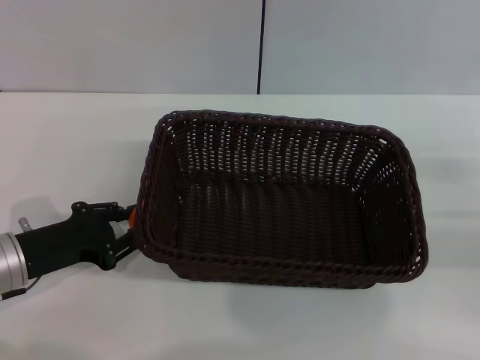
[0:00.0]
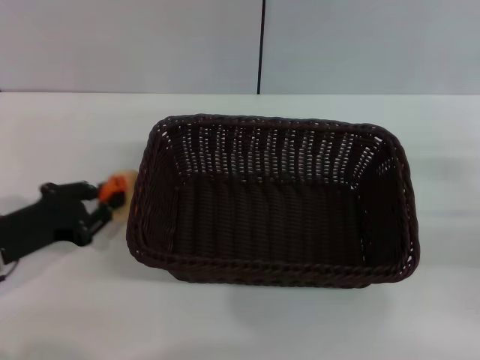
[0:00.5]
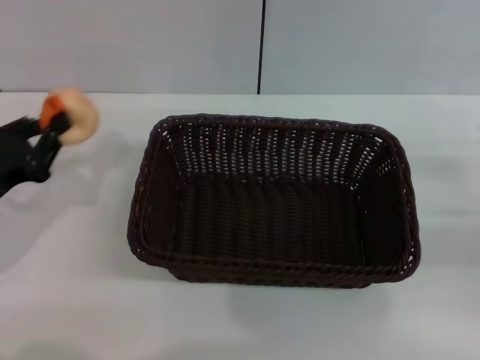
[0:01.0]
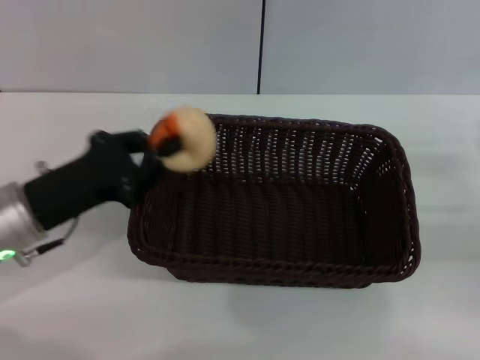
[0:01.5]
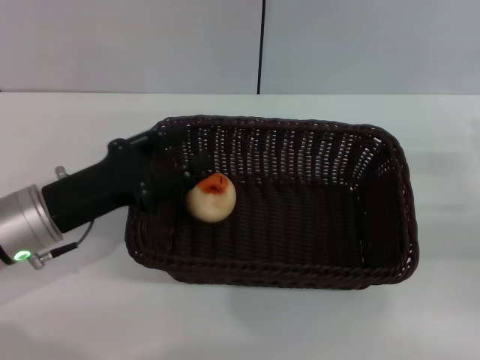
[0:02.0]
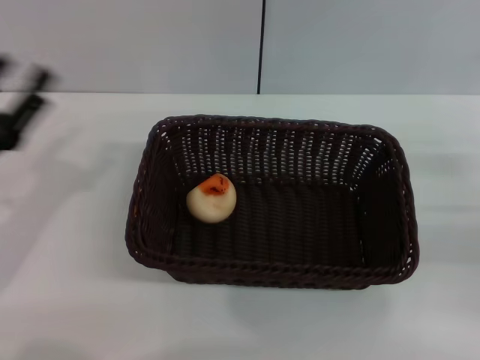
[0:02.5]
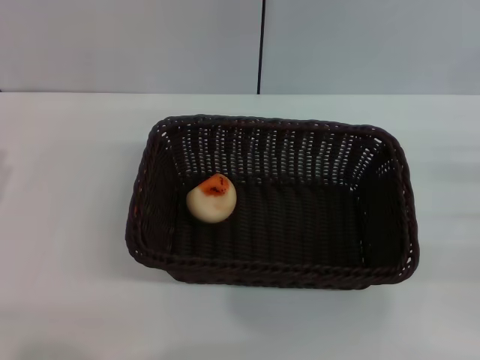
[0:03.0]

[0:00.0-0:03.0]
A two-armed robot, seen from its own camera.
Step, 0:01.0 to 0:02.0: Place the egg yolk pastry into the basket with the left gripper.
0:00.0 to 0:01.5: The left gripper ends up about 5 cm from where it was, and closes up.
0:01.5 to 0:03.0: The left gripper is displaced to the left and backward by some 10 cm, and opens its fingers.

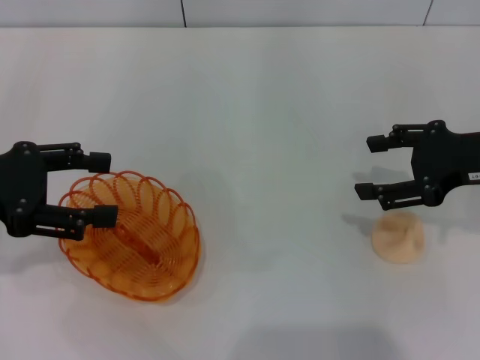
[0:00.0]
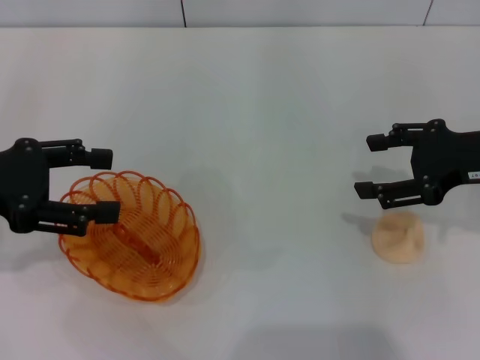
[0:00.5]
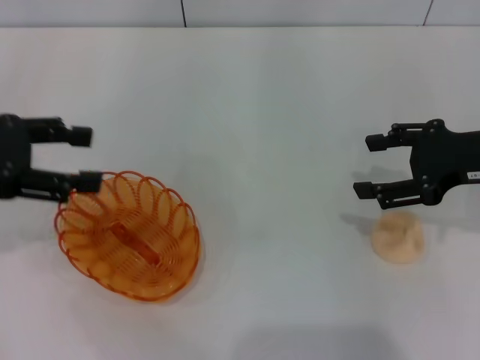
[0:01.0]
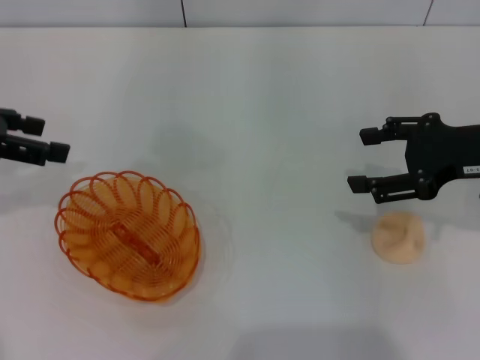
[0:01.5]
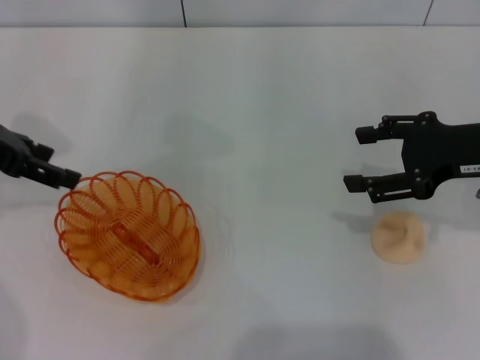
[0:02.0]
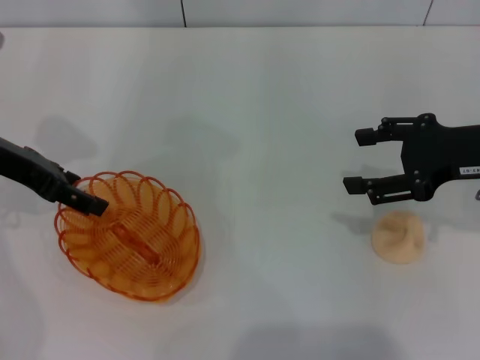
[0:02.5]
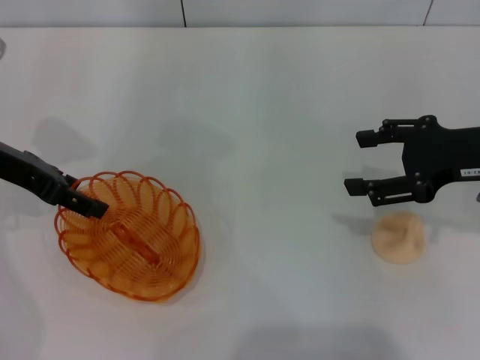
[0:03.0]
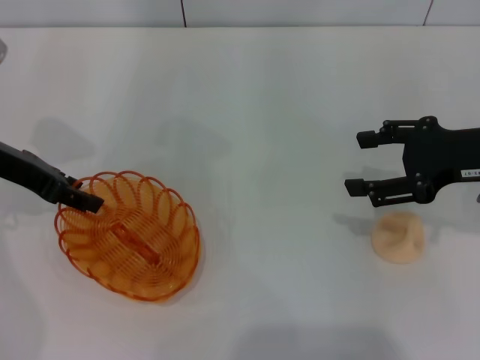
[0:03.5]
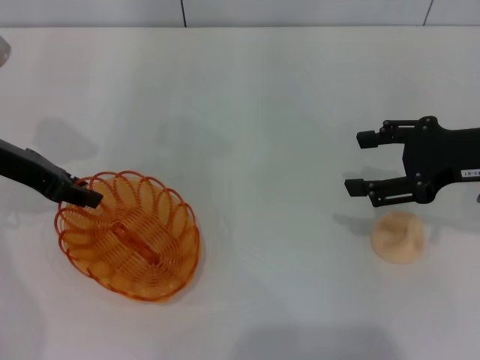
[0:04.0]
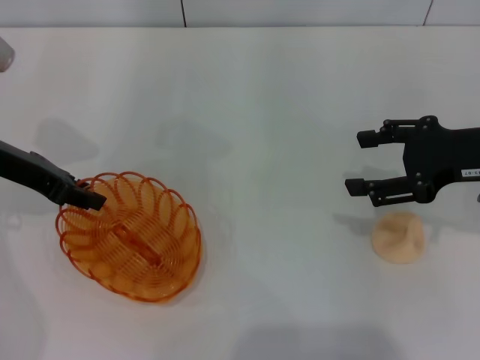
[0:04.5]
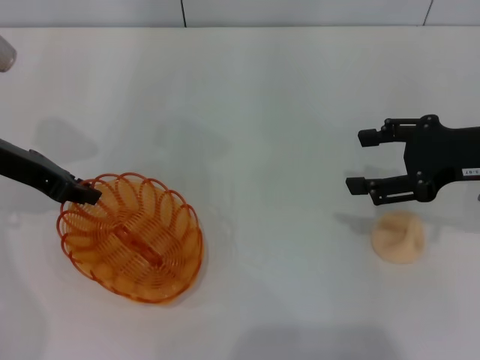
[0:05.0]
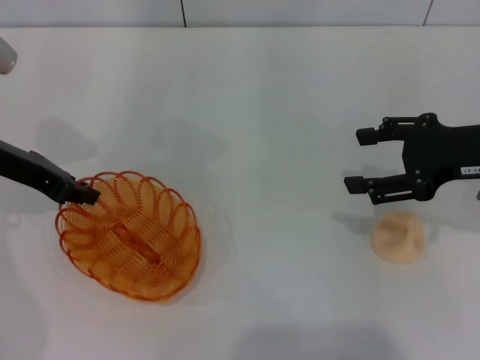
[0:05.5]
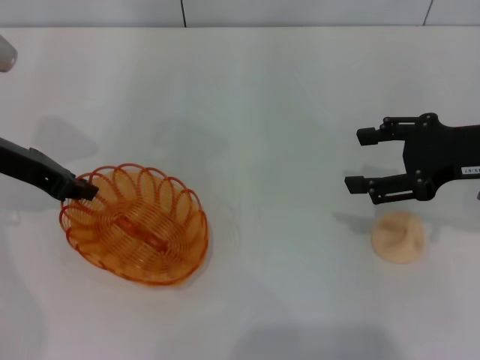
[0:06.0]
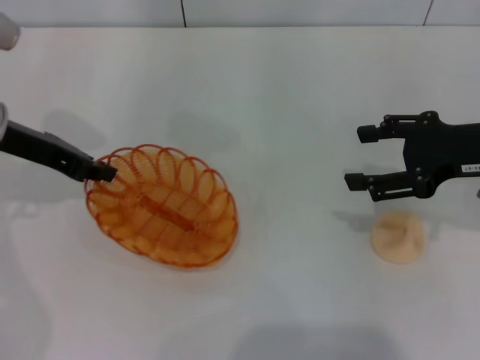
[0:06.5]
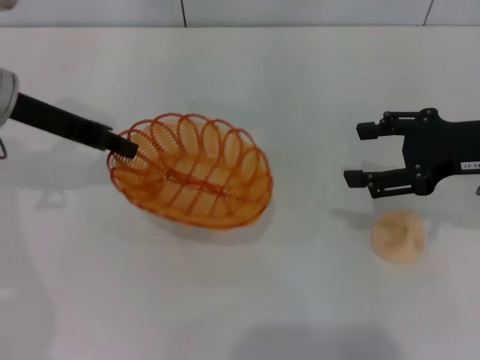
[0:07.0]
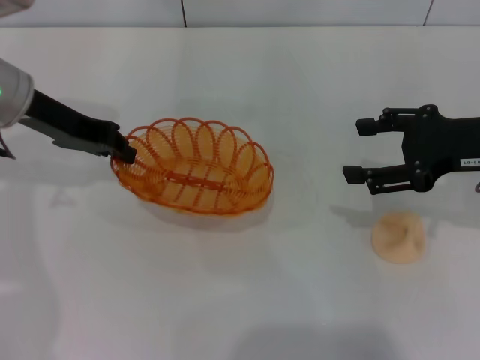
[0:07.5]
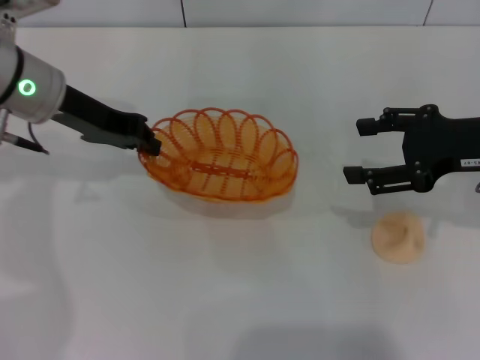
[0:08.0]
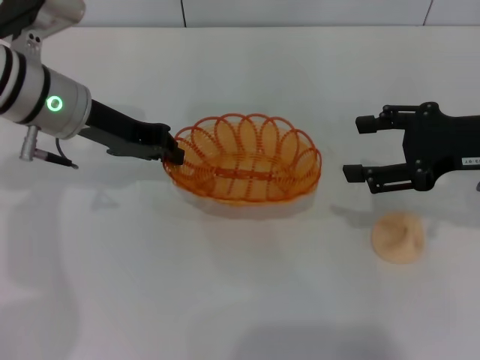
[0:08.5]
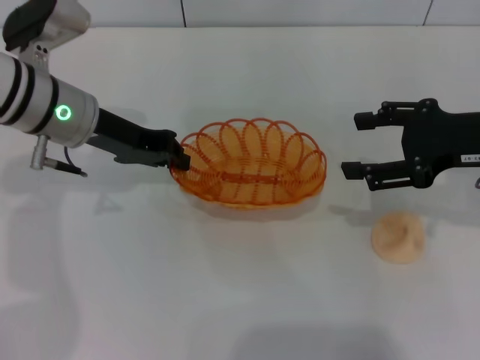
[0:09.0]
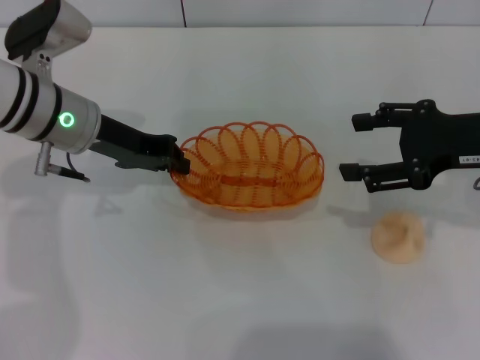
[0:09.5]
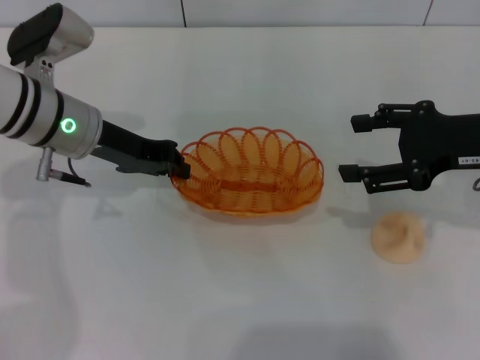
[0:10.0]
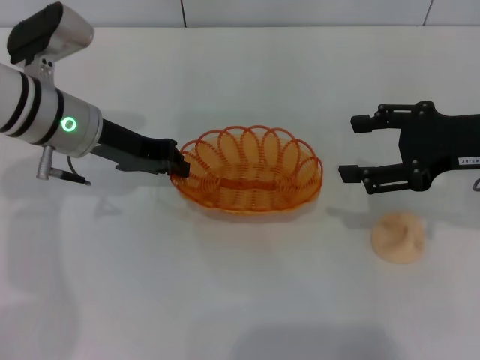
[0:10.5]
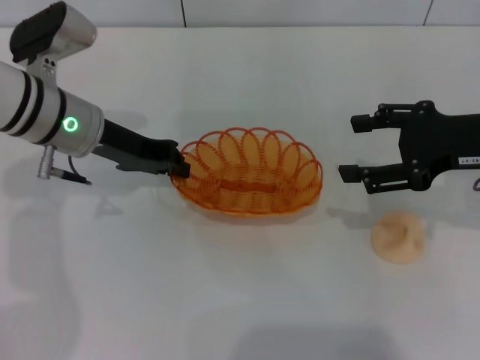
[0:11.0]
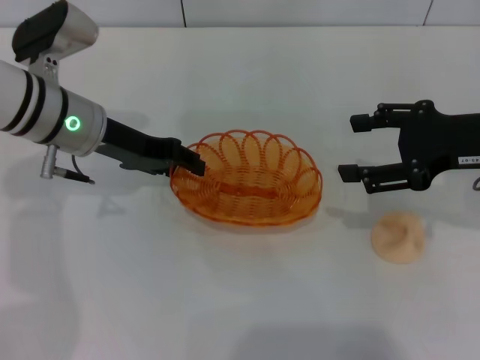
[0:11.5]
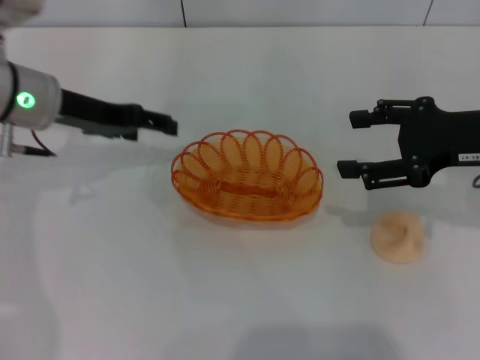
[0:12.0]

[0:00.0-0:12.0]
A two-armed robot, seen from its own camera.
Step, 0:00.0 to 0:07.5: Pick up the basket with the left gripper.
0:00.0 to 0:02.0: The left gripper is displaced forward by roughly 10 cm.
0:02.0 to 0:04.0: The left gripper moves approximately 5 cm, and closes its fingers.
0:04.0 to 0:06.0: The left gripper closes its fingers.
0:06.0 to 0:08.0: The left gripper shifts some 5 cm to the right.
0:08.0 to 0:10.0: The left gripper changes place by some 5 cm.
0:10.0 to 0:12.0: The left gripper opens its fingers.

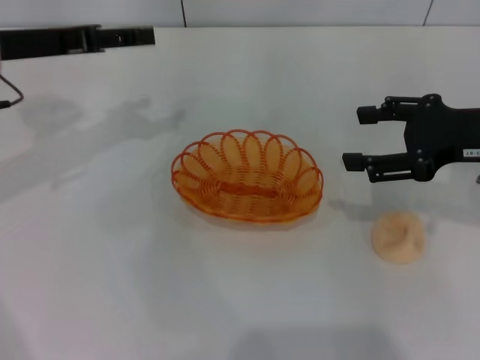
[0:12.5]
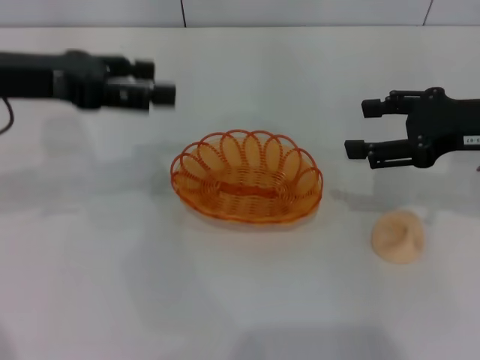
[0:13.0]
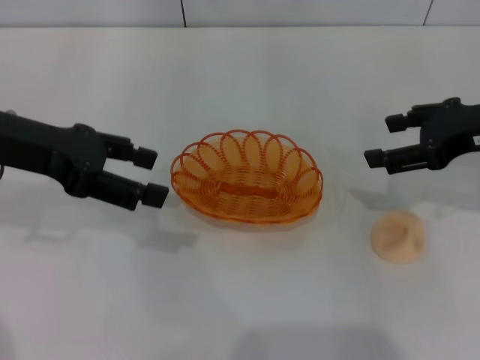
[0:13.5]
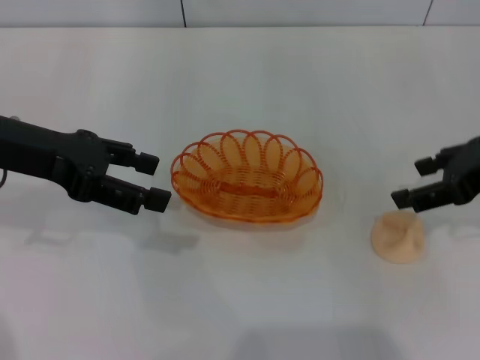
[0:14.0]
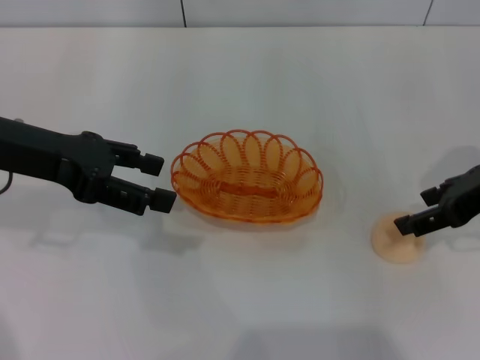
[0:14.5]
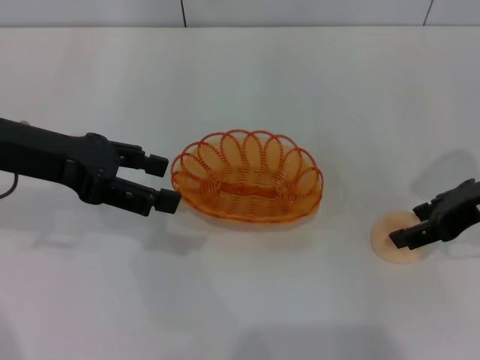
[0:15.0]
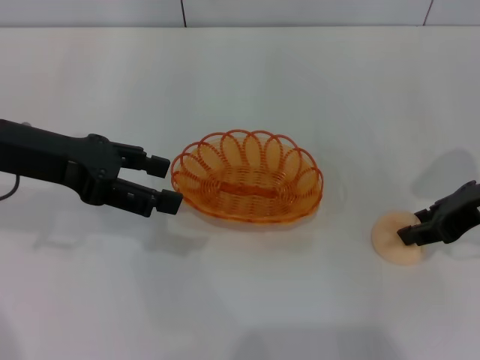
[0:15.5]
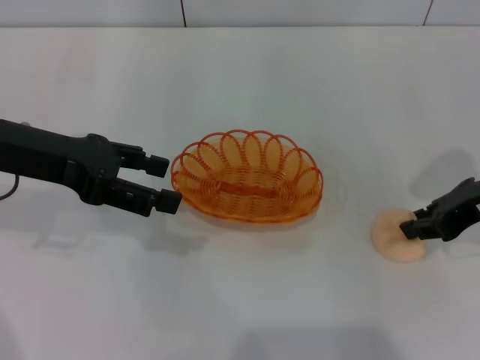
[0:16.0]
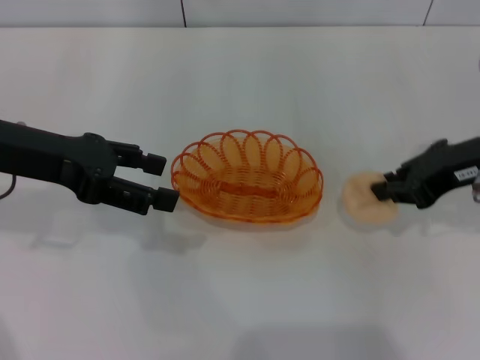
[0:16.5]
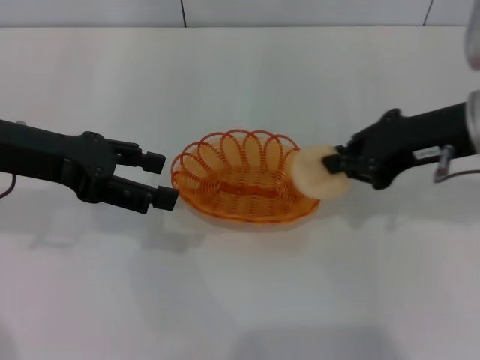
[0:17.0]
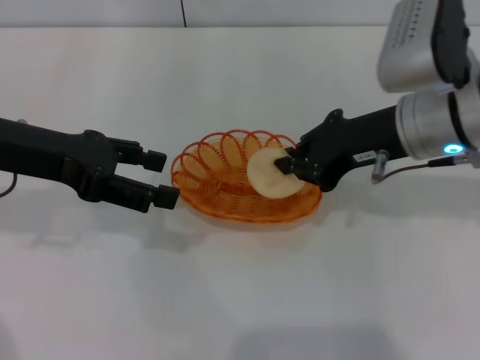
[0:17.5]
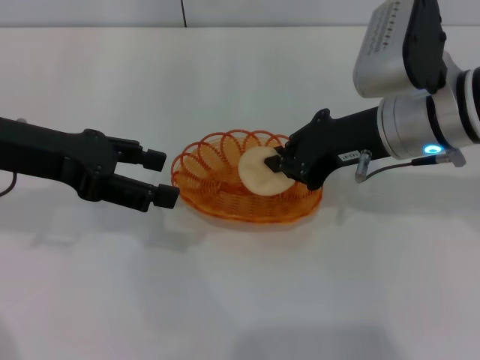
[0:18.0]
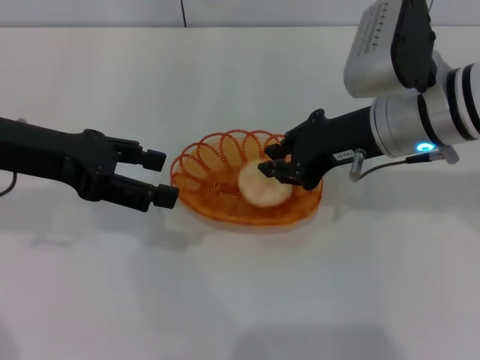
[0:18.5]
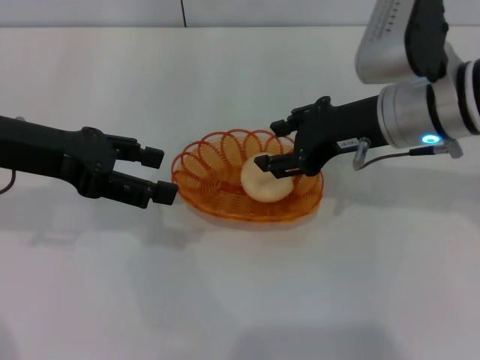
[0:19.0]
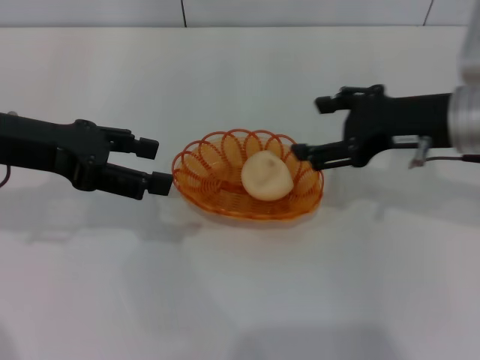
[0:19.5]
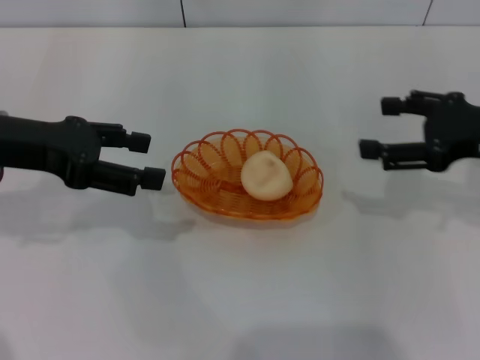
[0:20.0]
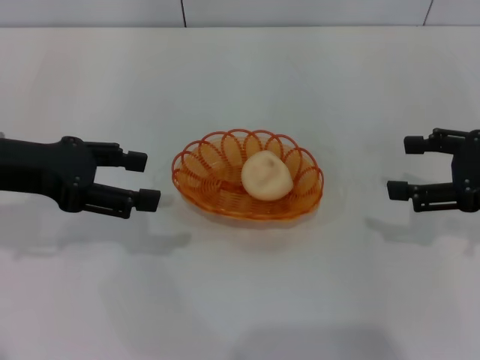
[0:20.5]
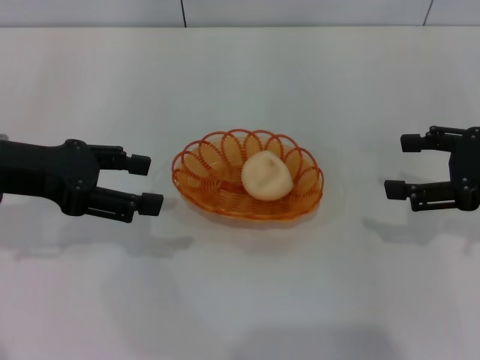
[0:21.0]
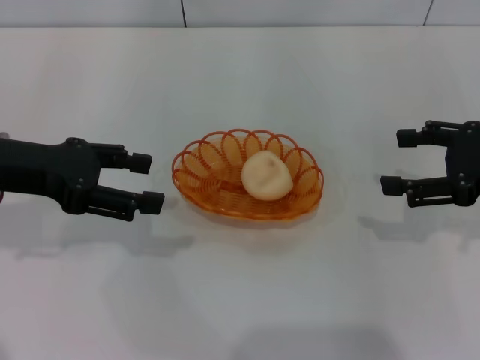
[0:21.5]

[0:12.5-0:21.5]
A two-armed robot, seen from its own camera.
Step, 0:12.5 to 0:16.0: Pick up the egg yolk pastry with the right gripper.
Step, 0:17.0 to 0:19.5: Place the egg yolk pastry into the basket with the right gripper.
0:12.5 to 0:14.5: The left gripper goes approximately 5 cm backward.
0:14.5 to 0:17.0: The right gripper shifts roughly 5 cm to the left, and closes its fingers.
0:17.0 to 0:19.5: The right gripper opens.
0:19.5 to 0:21.5: The right gripper heads to the right, covering roughly 10 cm.

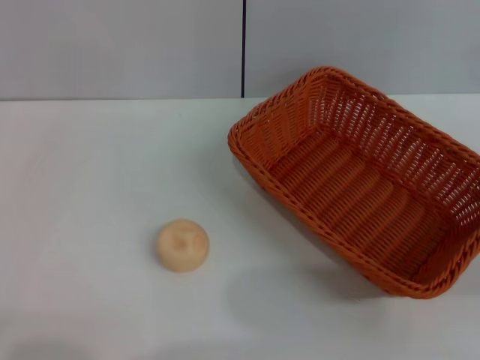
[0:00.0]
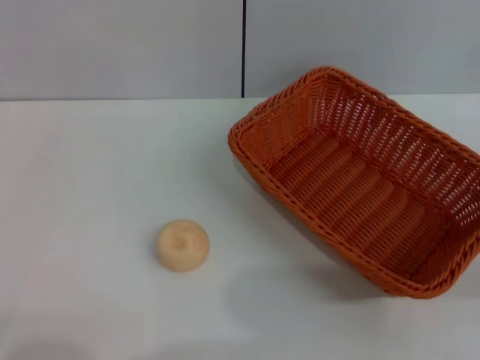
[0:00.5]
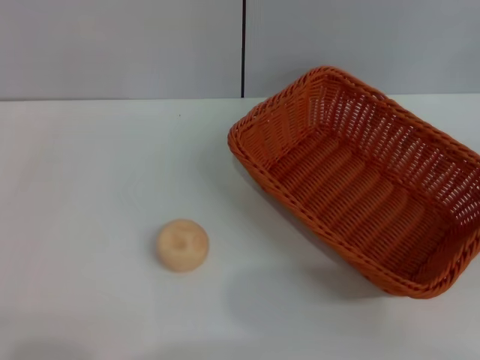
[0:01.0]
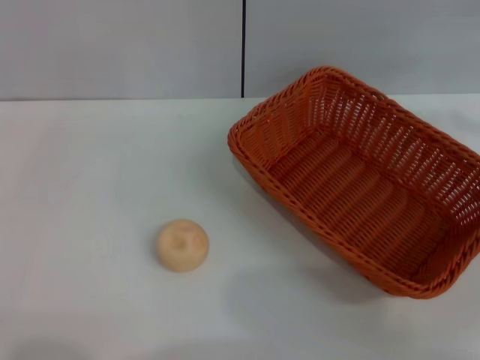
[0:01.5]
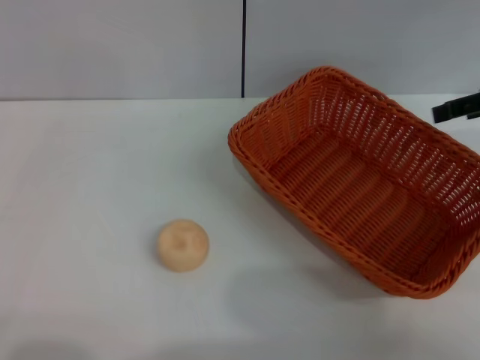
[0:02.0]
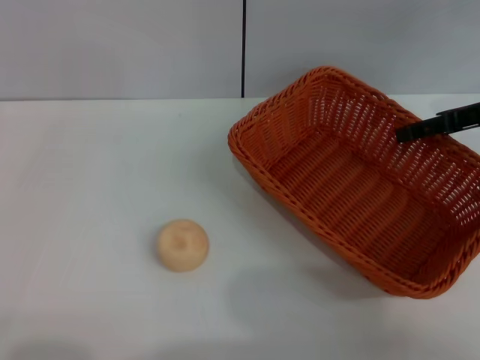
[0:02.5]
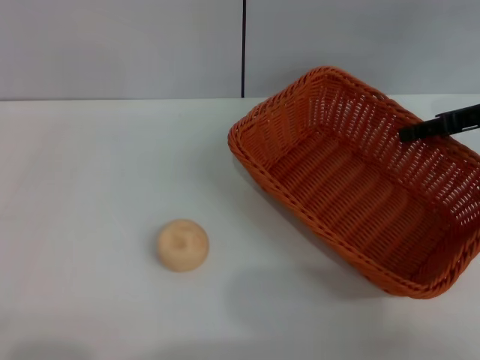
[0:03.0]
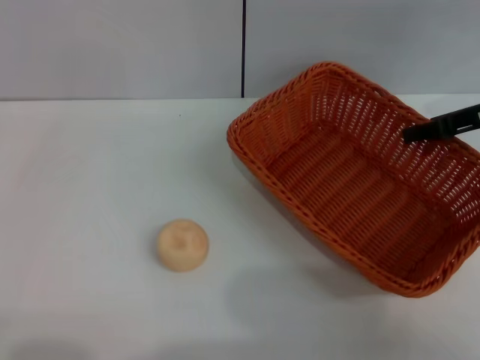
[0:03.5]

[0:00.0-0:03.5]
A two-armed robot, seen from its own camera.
0:00.0 to 0:02.0: The right gripper moves upward and forward, some 20 cm.
0:02.0 to 0:03.5: The right gripper ends up roughly 5 cm from where it was, and closes its fingers.
